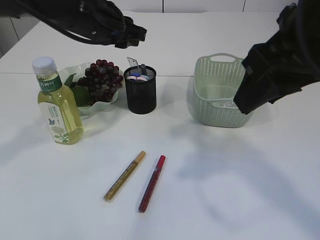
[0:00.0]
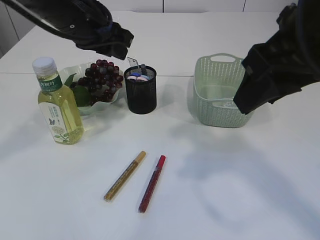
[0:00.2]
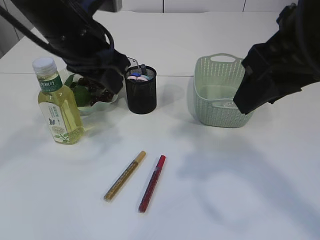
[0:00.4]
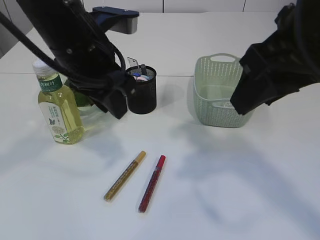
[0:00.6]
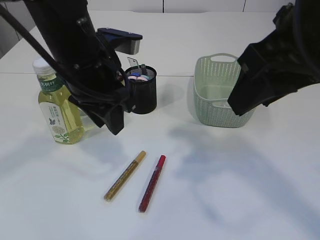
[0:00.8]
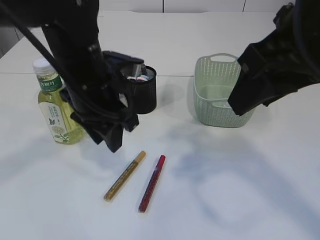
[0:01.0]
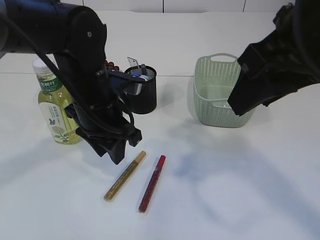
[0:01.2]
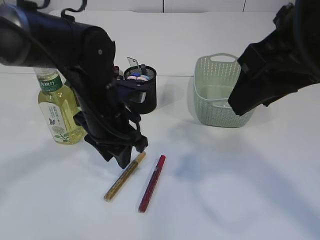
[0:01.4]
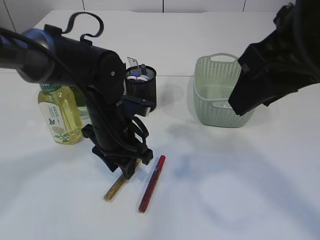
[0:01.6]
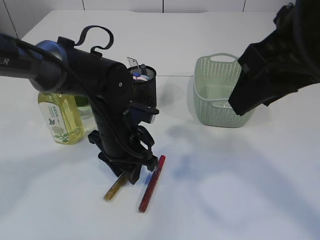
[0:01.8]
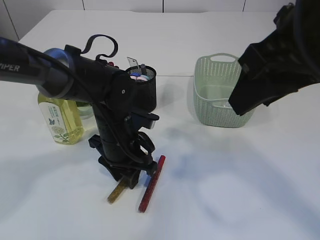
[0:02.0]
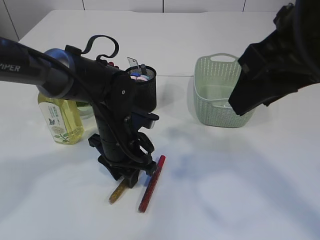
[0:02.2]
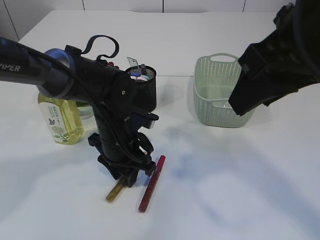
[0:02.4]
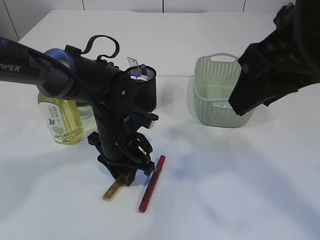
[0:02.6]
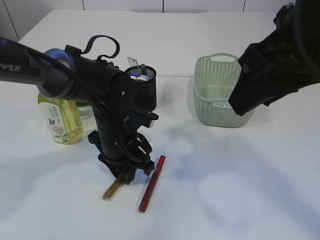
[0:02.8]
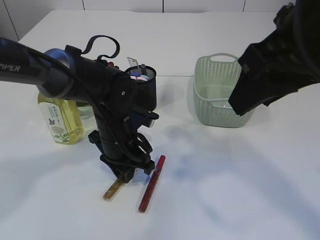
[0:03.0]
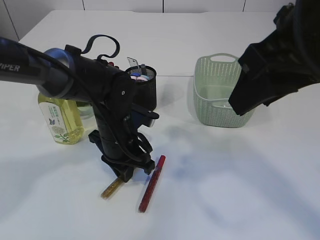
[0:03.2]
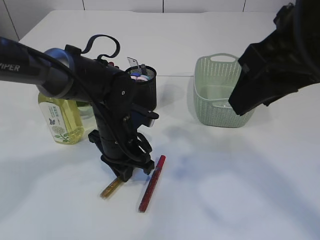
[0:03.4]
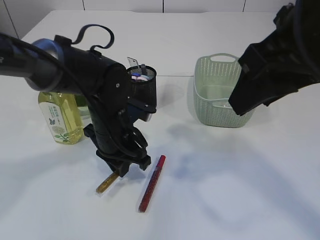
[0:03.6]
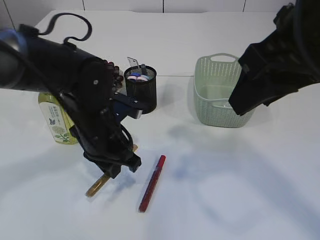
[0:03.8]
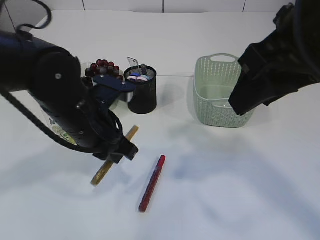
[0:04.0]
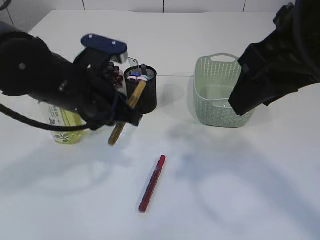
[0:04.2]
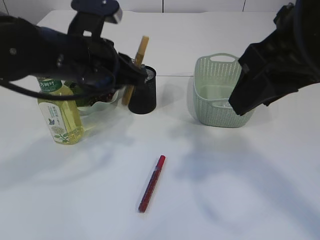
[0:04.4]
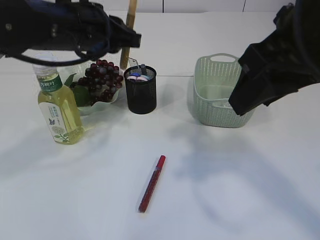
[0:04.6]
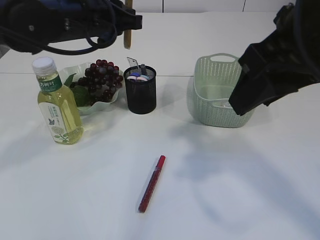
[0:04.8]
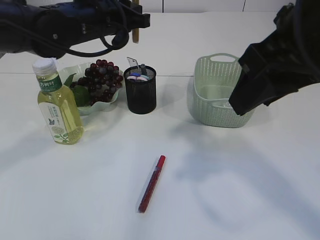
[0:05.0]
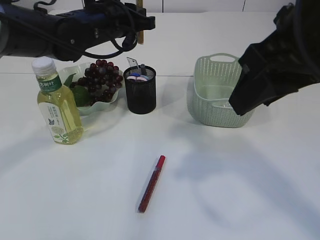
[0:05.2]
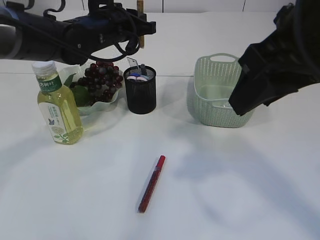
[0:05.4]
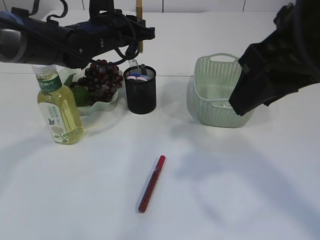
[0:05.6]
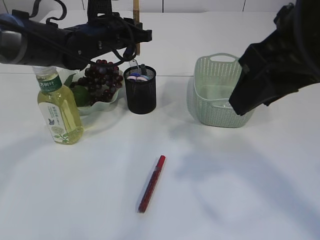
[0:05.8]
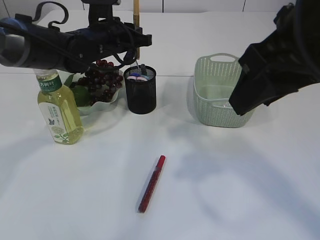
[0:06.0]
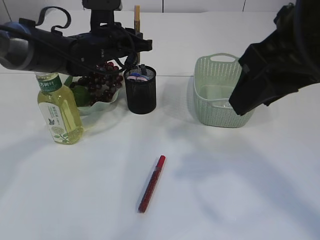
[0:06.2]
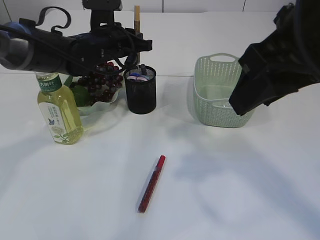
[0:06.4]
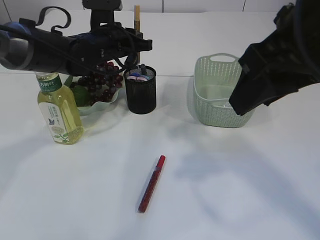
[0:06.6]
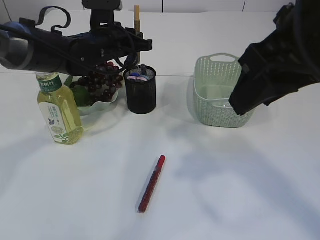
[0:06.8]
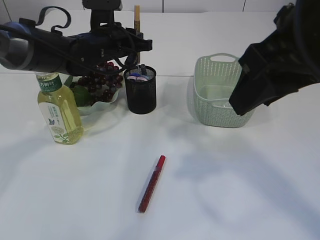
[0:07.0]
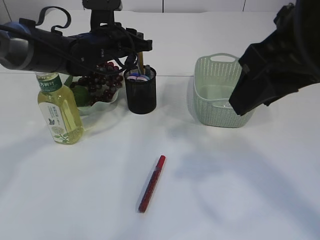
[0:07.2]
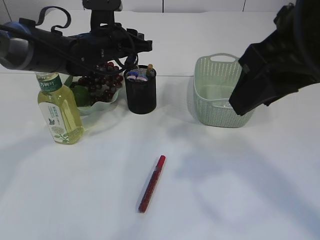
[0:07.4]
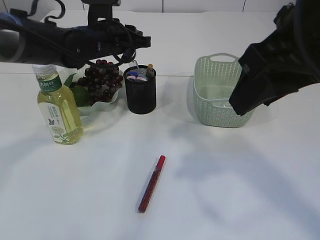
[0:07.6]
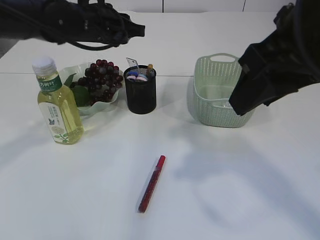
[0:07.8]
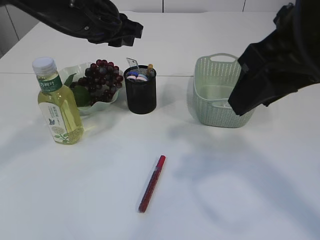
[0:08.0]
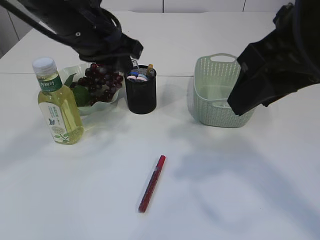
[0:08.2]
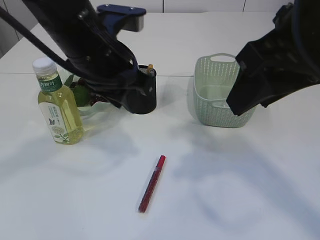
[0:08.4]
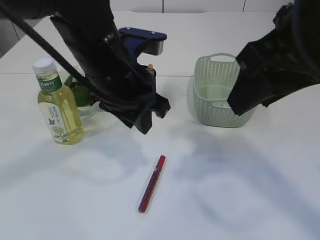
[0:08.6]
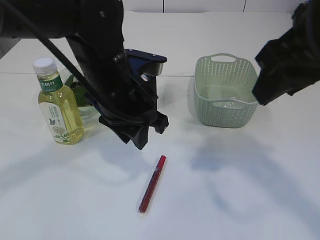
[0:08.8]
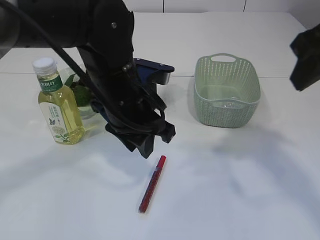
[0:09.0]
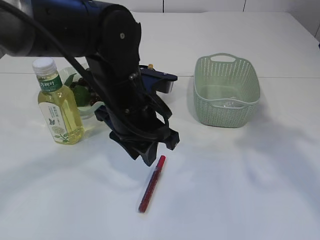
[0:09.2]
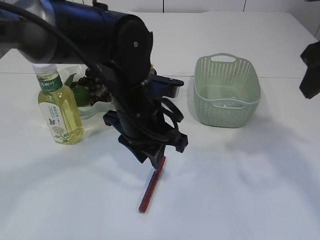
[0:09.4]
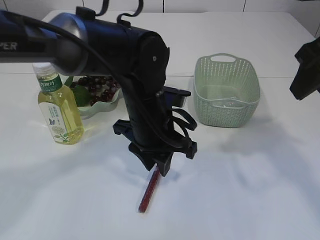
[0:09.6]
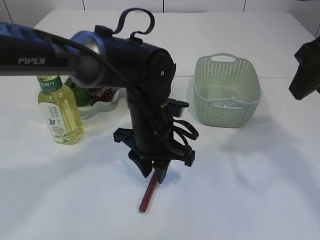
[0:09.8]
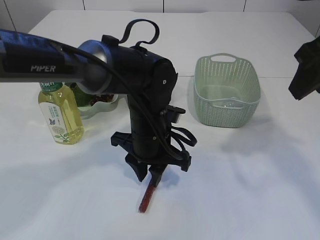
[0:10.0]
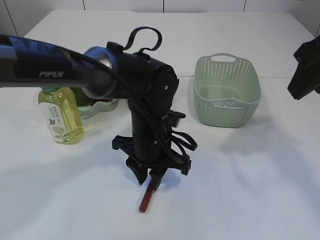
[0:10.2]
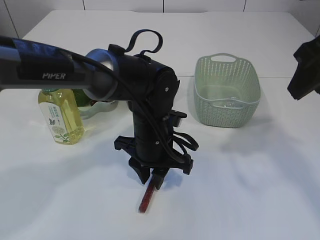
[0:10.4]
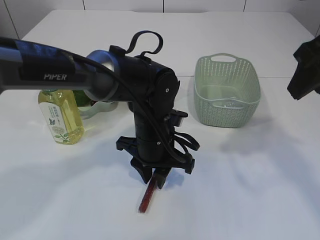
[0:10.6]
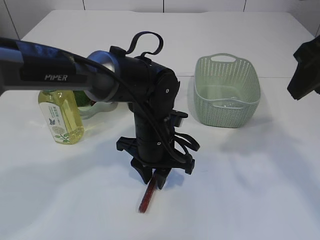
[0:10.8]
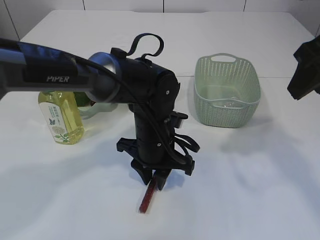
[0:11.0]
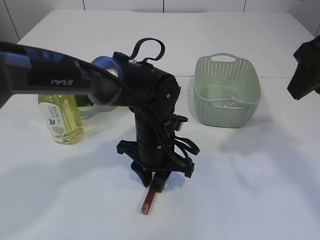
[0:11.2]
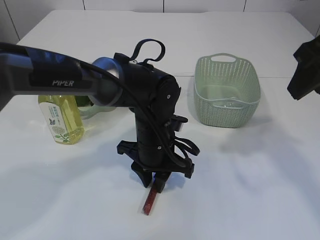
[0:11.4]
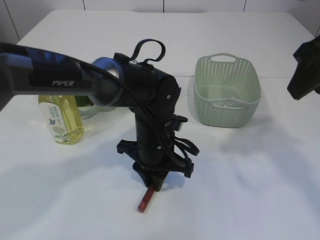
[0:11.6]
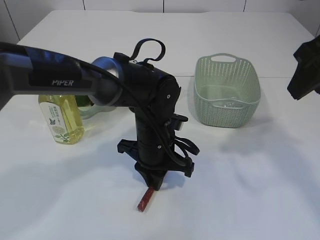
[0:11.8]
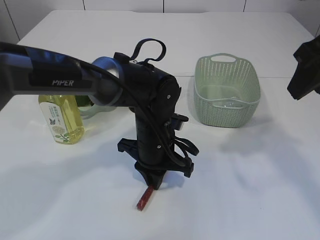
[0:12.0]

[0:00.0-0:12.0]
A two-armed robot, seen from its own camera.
Step, 0:00.0 to 0:03.8: pick up the yellow glue.
Step, 0:04.0 to 0:07.8: place the yellow glue into the pen holder.
0:00.0 to 0:01.6: The left gripper heads downward and backward, covering approximately 15 cm.
0:01.6 to 0:03.0: The grippers make only small movements.
0:03.0 to 0:04.4: The left gripper heads upward, covering roughly 15 cm.
0:04.4 to 0:06.0: The left gripper shifts approximately 15 cm forward.
0:06.0 to 0:07.6: Neither gripper changes place.
0:07.6 to 0:09.0: The right gripper goes approximately 5 cm to the right. The left gripper shifts roughly 15 cm backward.
0:09.0 to 0:10.4: The left gripper goes some 10 cm downward.
0:10.4 to 0:12.0: The grippers make only small movements.

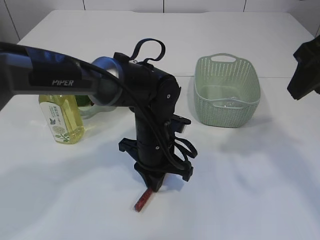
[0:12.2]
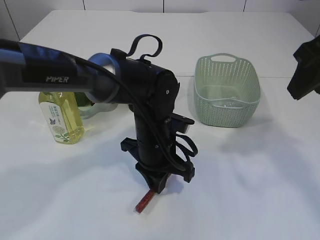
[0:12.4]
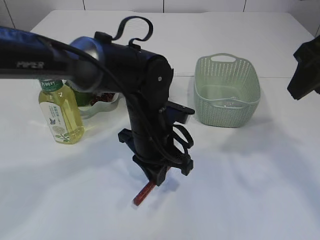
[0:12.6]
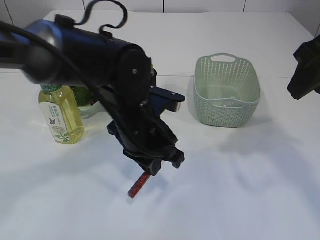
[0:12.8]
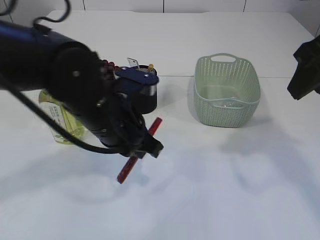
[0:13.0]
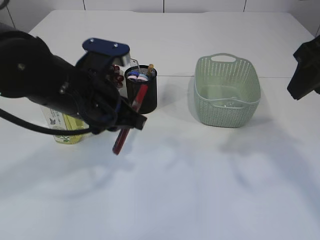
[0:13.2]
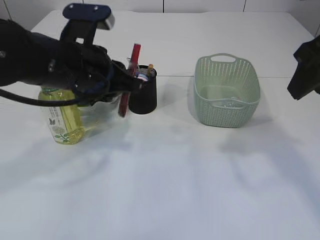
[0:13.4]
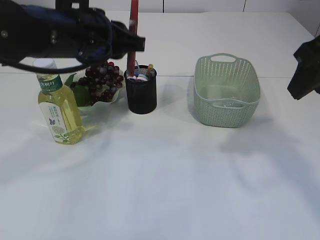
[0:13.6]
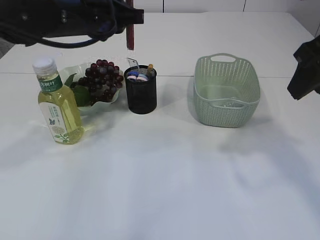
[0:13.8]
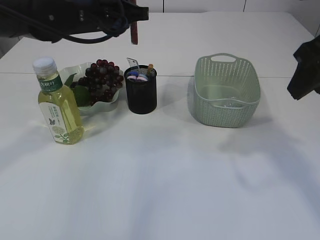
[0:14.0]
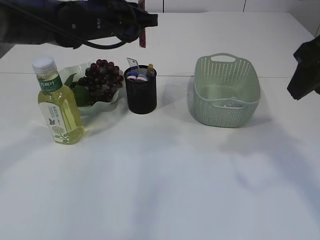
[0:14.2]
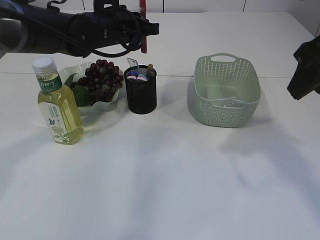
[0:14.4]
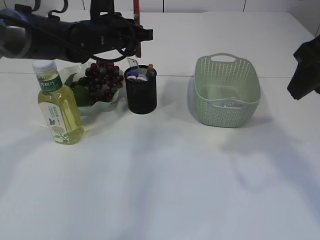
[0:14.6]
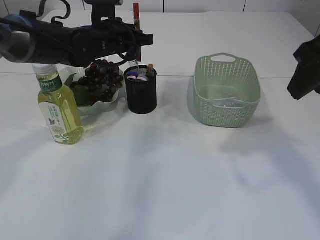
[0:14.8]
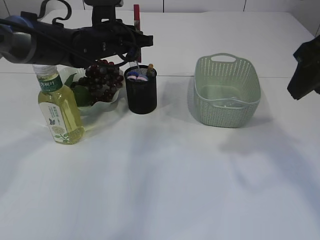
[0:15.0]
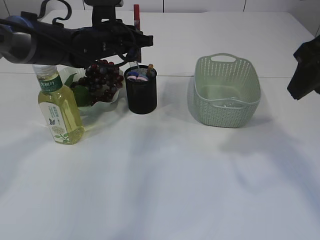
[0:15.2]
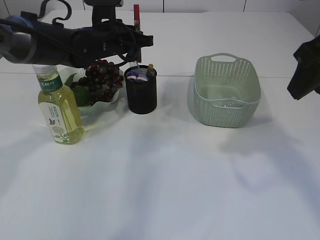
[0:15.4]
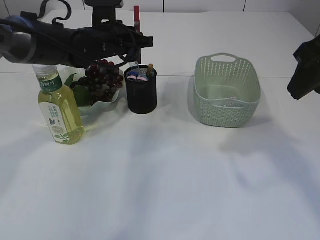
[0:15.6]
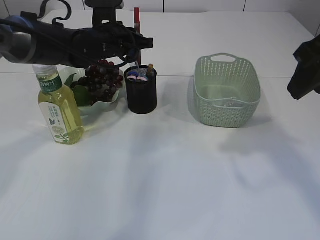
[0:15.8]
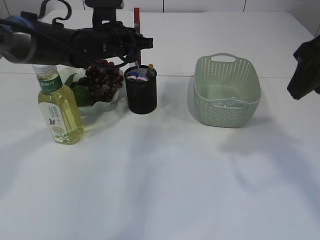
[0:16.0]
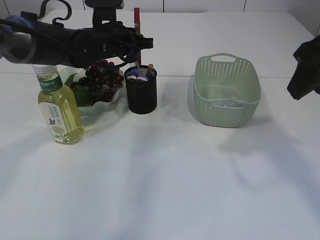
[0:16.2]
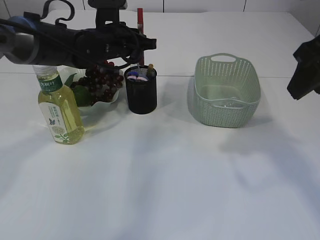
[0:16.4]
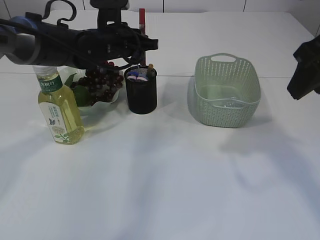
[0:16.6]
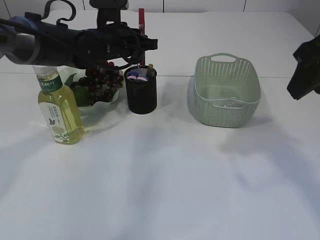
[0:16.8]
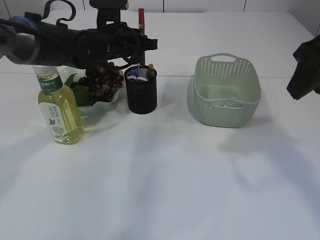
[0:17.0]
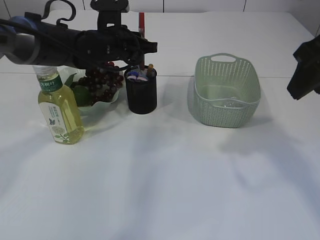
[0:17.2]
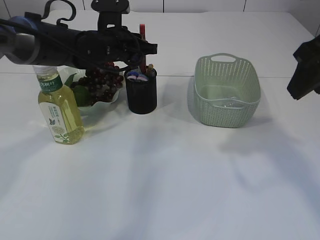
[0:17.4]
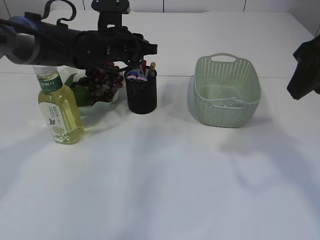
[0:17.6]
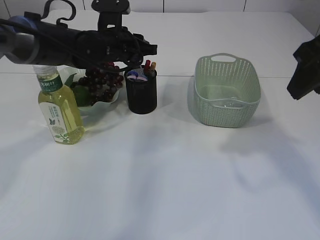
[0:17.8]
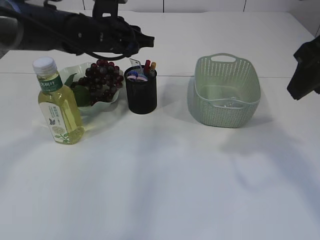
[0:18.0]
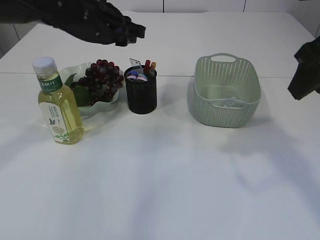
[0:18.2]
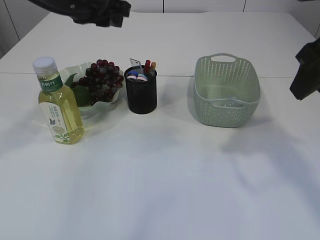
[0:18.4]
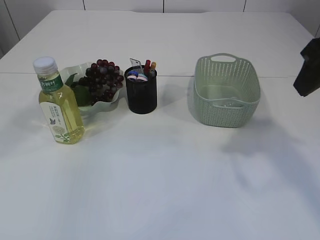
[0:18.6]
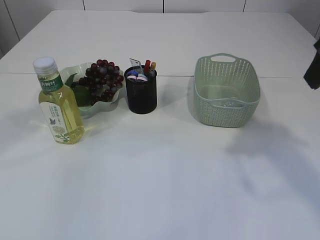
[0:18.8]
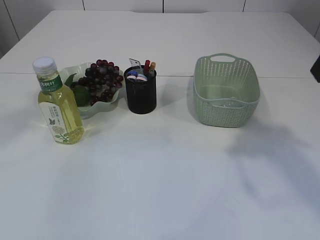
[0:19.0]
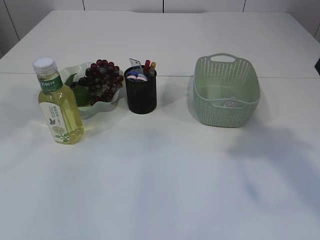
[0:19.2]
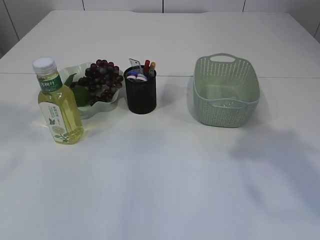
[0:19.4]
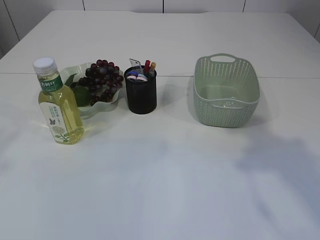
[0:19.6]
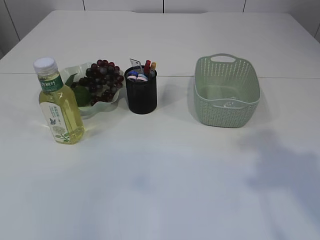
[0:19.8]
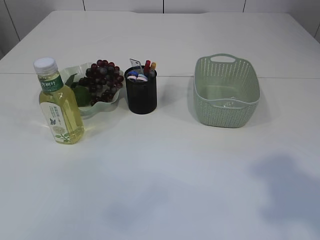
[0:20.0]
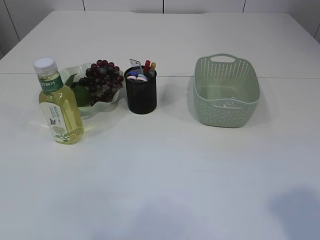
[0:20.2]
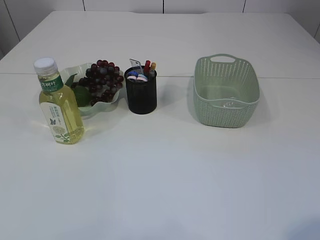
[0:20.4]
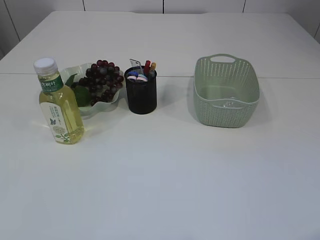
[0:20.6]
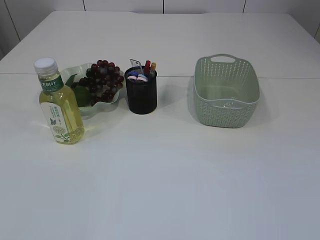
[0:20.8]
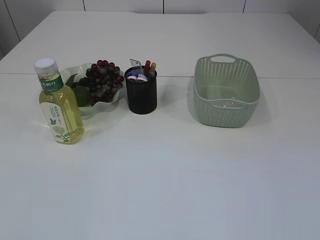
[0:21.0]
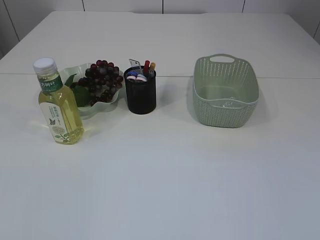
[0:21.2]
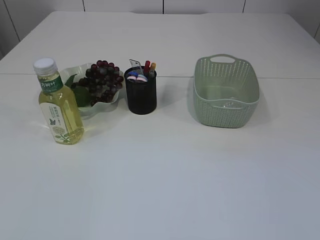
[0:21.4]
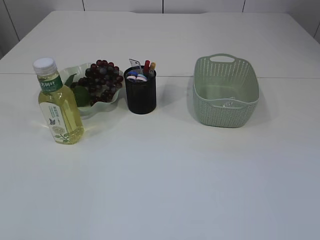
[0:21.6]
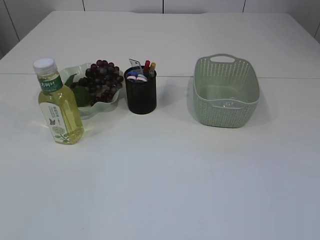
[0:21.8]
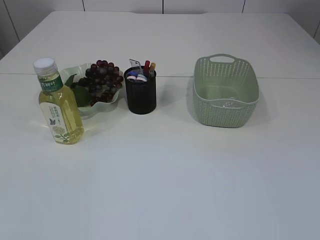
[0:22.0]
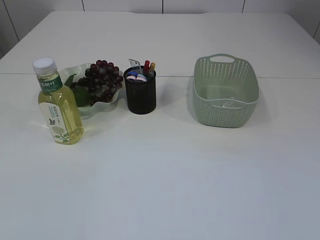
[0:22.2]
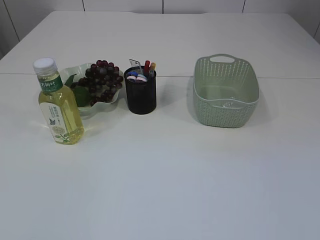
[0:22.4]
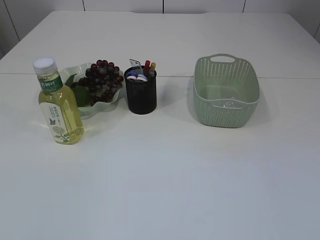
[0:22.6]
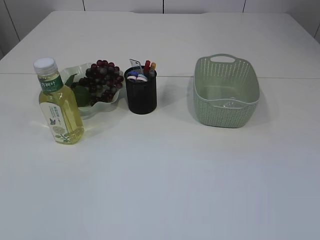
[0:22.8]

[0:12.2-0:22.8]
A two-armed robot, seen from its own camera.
Step, 0:13.0 to 0:18.2: place the red glue into the pen holder.
0:12.2 to 0:13.8: The left gripper shifts roughly 20 cm upward and to the left.
0:13.8 to 0:15.2: The left gripper shifts about 15 cm forward and downward.
0:15.2 to 0:16.8: Both grippers stay put.
0:16.8 to 0:18.2: The left gripper moves upward, approximately 5 cm.
0:18.2 to 0:19.8: The left gripper heads backward, to the left and upward, covering approximately 40 cm, while the right gripper shifts approximately 10 cm backward.
